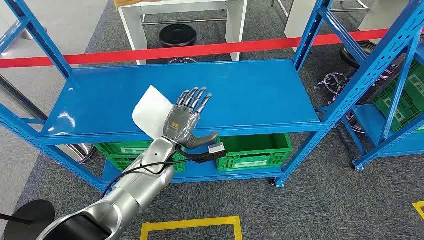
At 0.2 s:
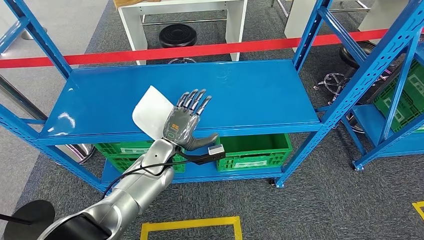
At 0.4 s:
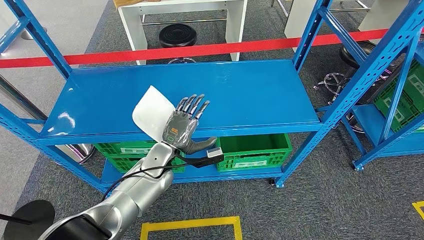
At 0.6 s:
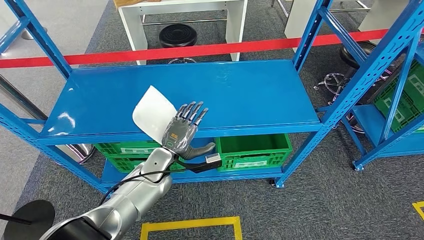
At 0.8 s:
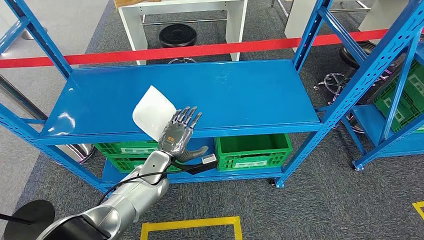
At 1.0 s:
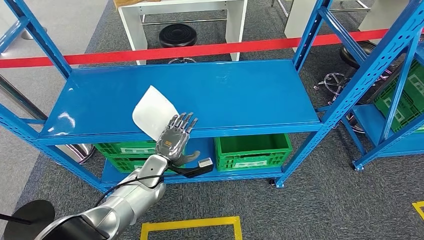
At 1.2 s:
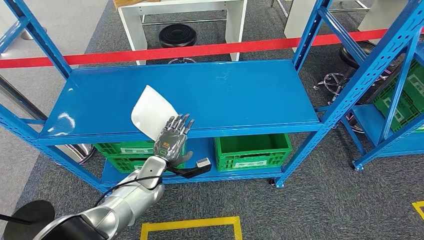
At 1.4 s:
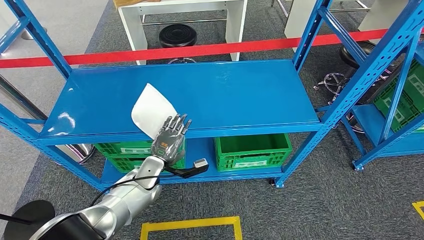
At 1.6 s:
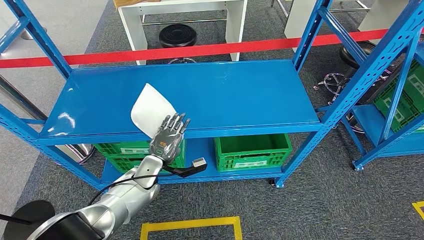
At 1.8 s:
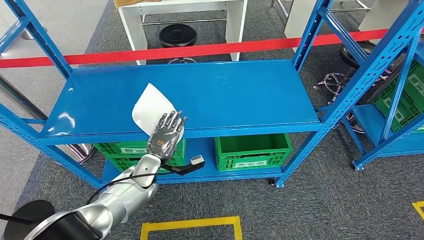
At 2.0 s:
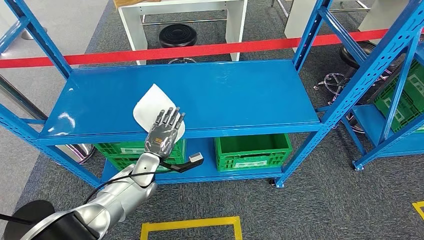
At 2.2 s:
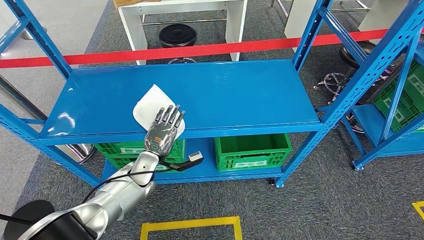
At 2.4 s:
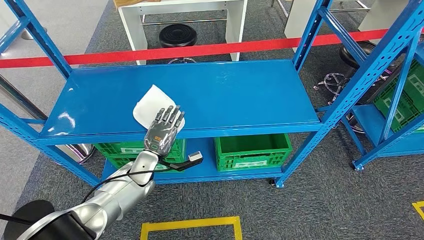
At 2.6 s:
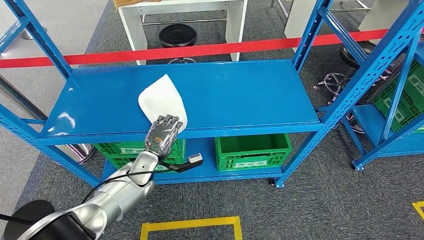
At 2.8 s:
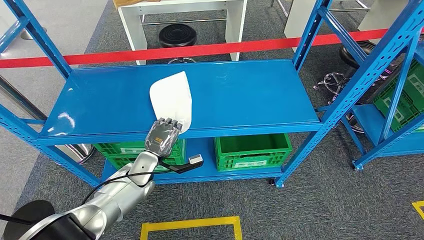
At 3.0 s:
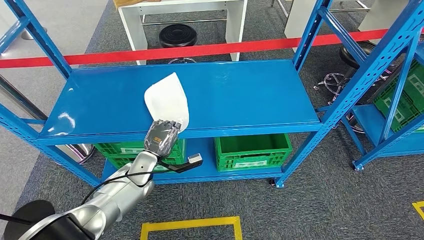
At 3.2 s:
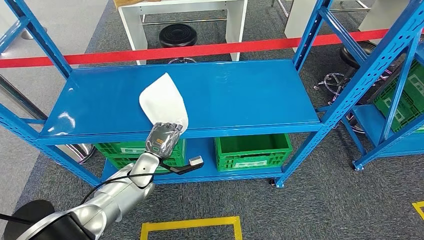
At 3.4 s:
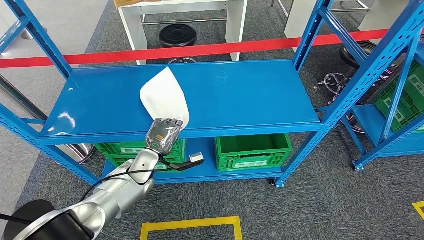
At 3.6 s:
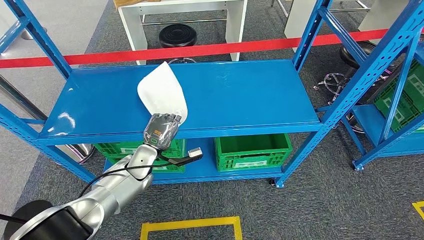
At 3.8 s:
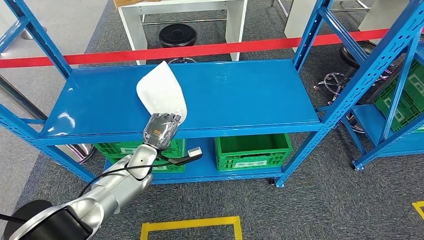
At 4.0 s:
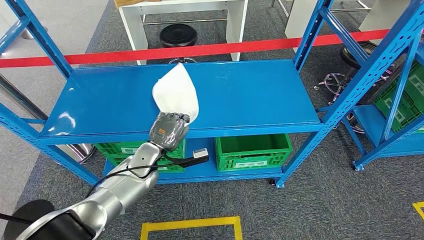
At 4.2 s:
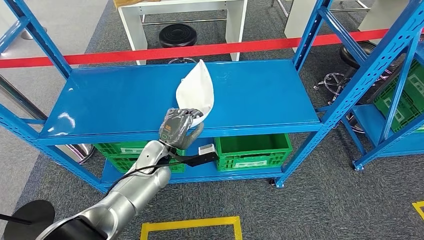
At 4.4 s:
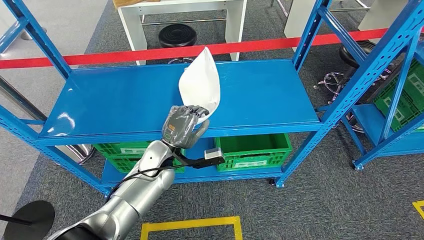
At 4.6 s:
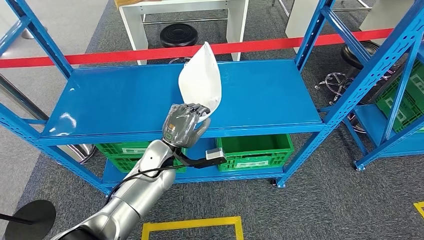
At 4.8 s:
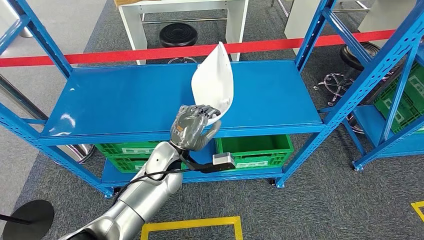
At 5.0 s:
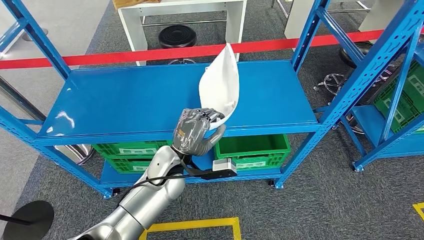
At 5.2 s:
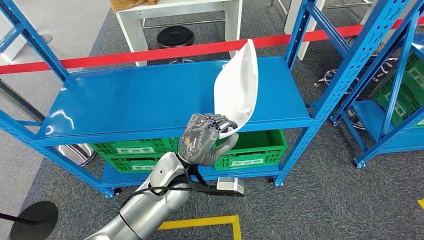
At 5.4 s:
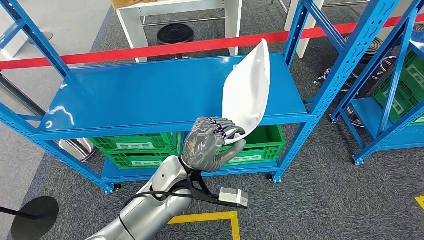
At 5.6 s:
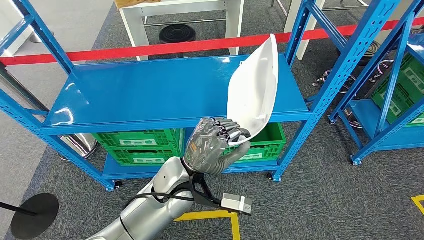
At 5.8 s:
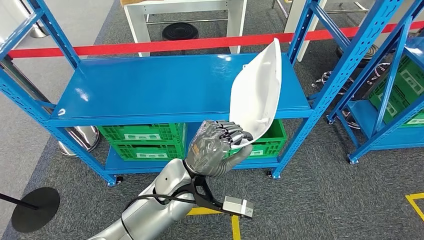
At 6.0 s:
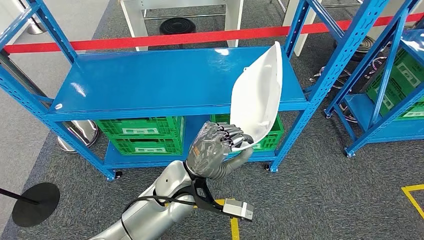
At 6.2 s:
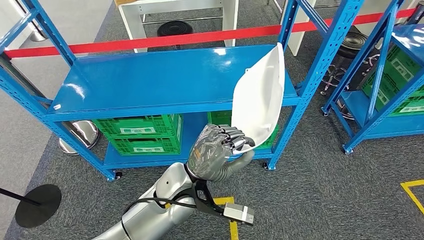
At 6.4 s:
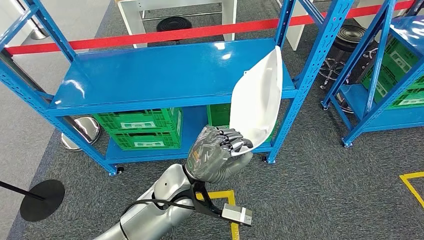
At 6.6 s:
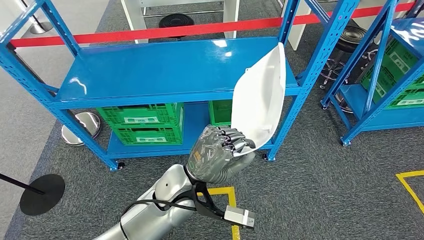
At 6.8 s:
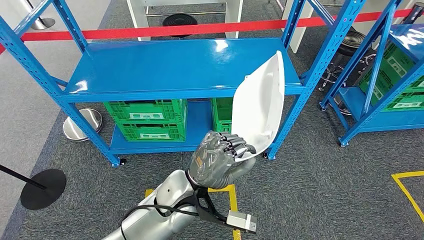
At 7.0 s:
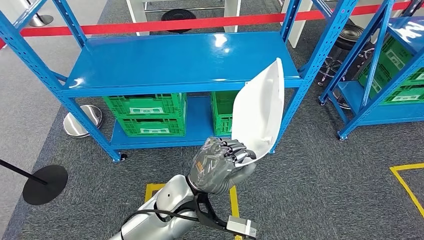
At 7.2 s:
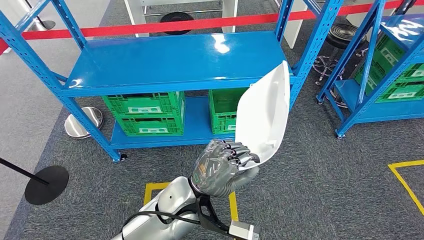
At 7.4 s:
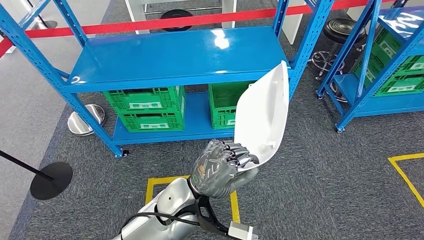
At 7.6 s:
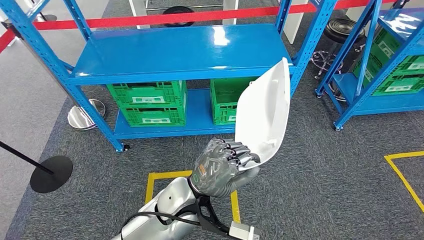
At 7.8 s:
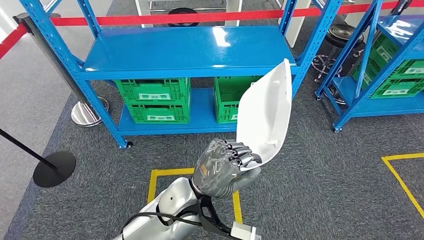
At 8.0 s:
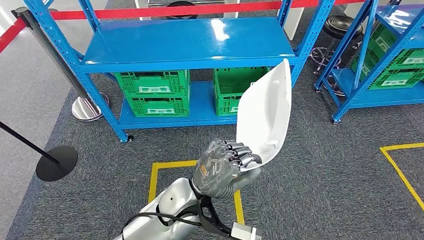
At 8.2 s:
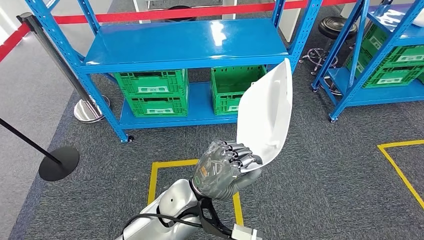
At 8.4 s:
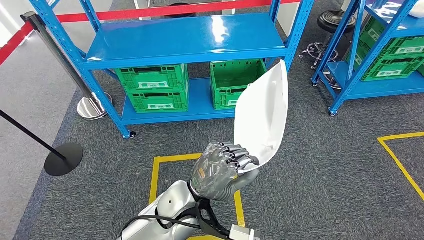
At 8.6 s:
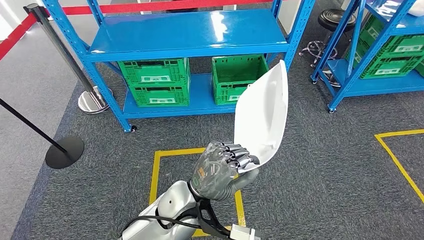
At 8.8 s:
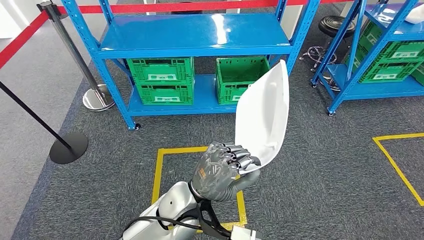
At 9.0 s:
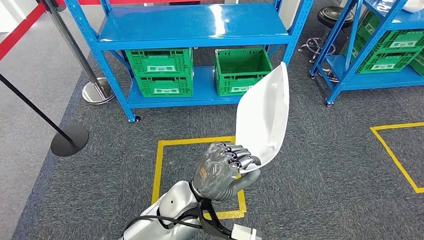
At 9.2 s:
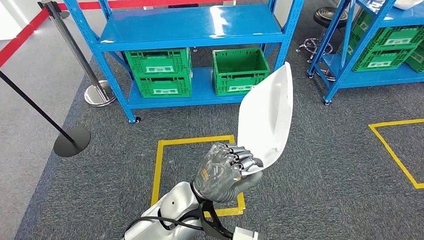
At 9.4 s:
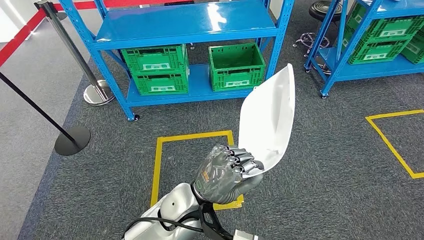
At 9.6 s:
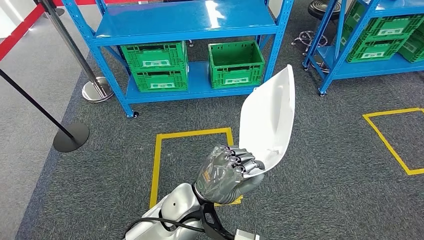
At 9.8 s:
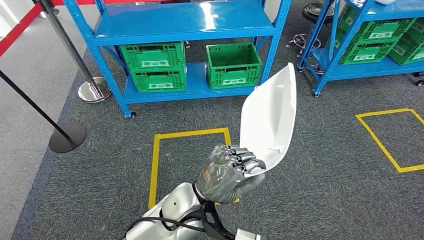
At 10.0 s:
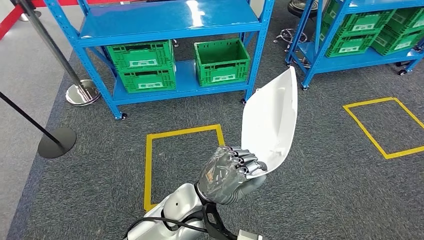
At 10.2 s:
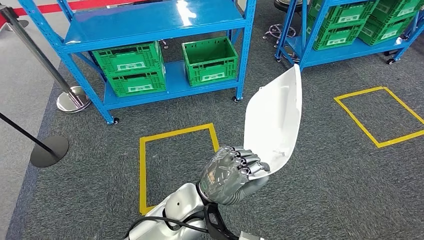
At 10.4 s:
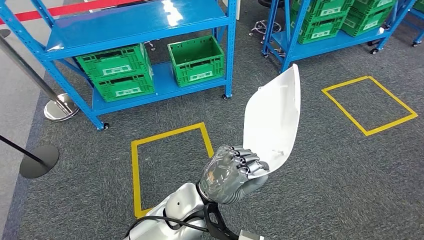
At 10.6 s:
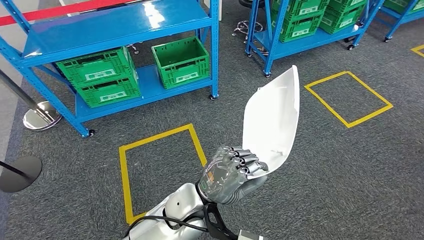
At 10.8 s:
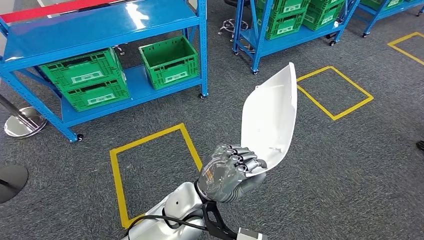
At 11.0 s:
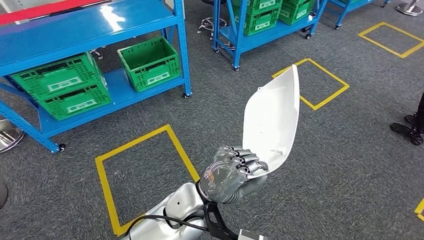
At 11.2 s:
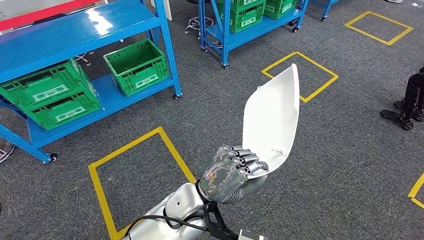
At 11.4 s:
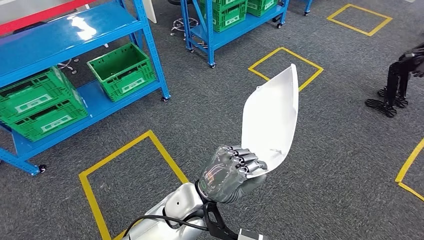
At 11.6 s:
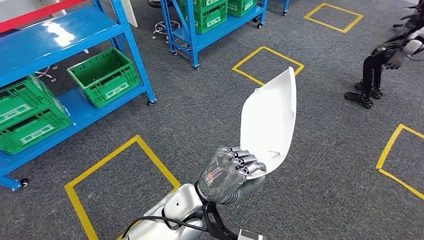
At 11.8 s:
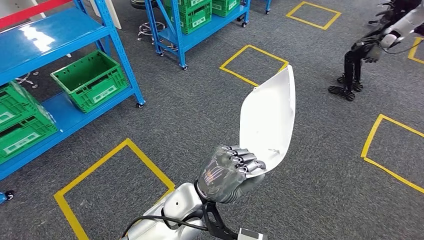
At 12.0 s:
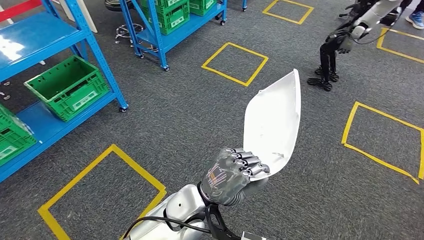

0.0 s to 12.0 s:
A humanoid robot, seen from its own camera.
Step, 0.0 to 5.0 s: Pick up the small component from the shelf.
1.6 to 3.0 s: There are only small adjustments of the hands.
3.0 to 4.4 s: The left hand shifts approximately 10 cm upward and to the right.

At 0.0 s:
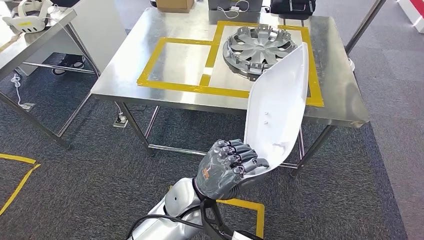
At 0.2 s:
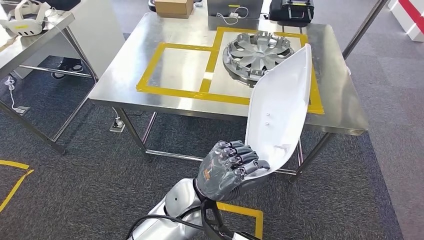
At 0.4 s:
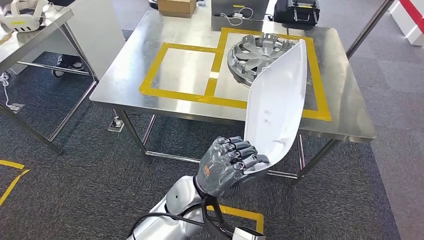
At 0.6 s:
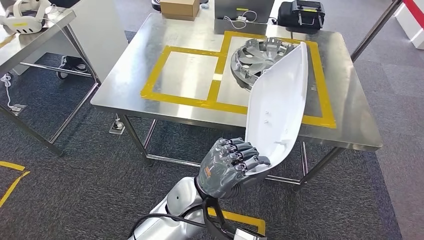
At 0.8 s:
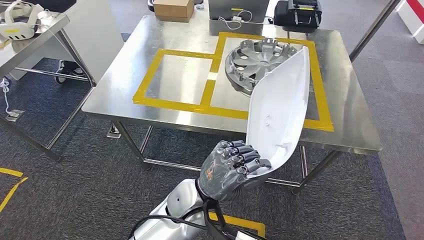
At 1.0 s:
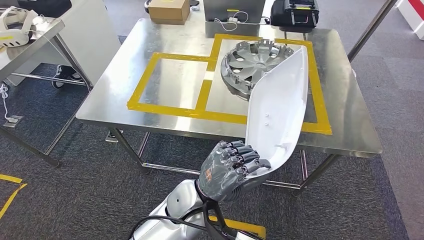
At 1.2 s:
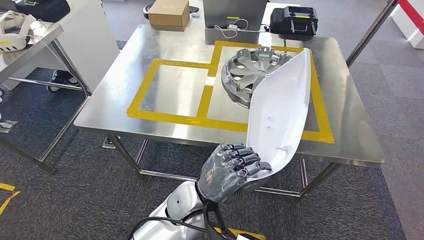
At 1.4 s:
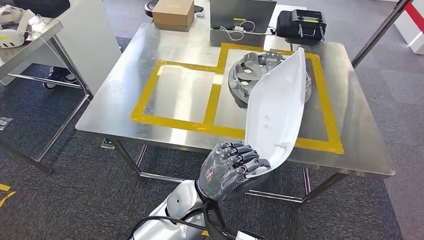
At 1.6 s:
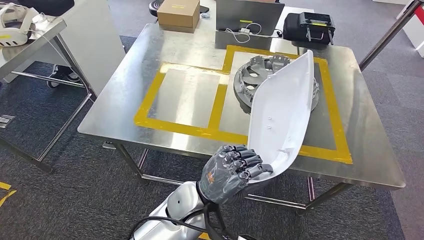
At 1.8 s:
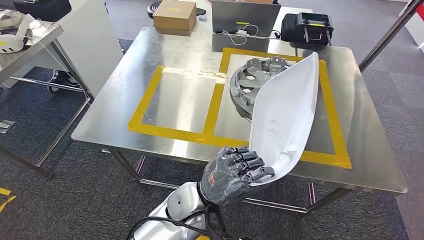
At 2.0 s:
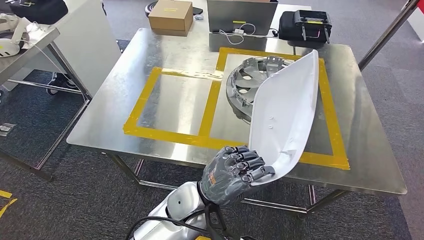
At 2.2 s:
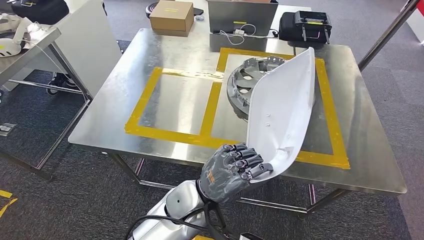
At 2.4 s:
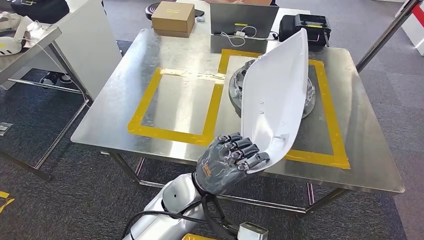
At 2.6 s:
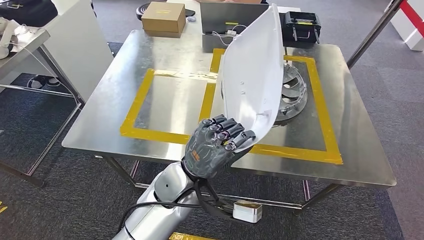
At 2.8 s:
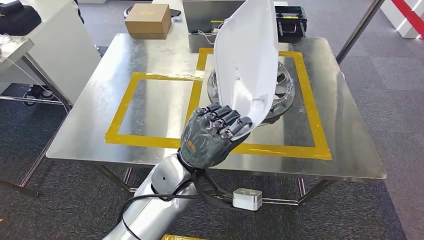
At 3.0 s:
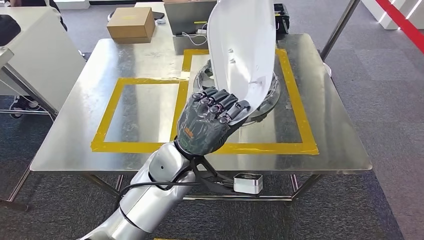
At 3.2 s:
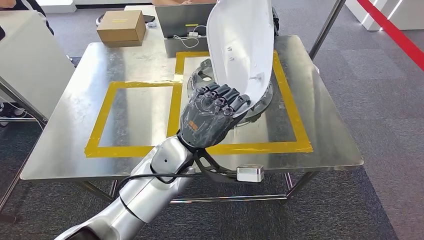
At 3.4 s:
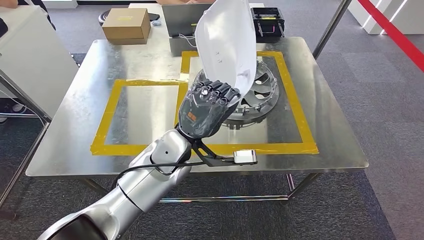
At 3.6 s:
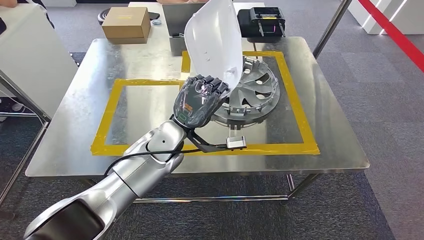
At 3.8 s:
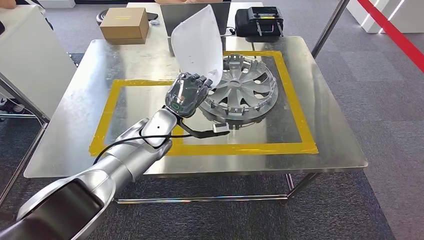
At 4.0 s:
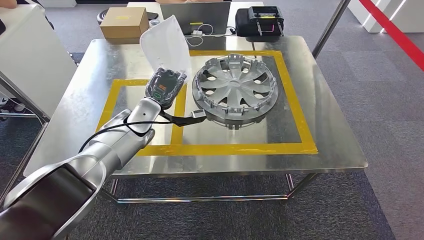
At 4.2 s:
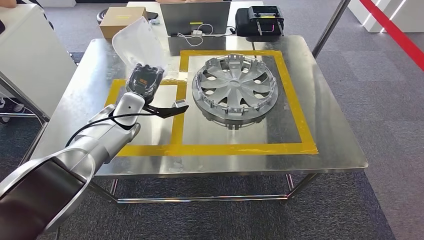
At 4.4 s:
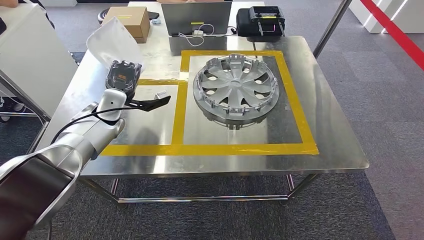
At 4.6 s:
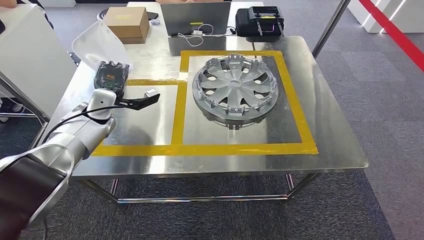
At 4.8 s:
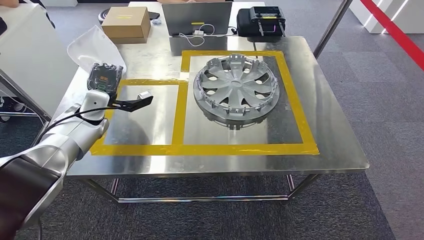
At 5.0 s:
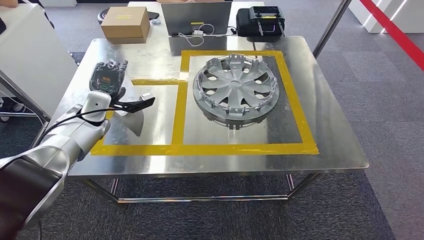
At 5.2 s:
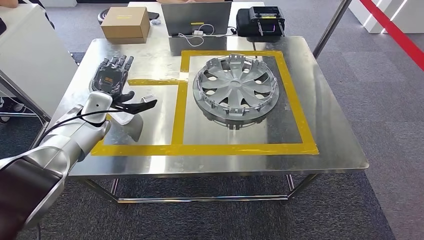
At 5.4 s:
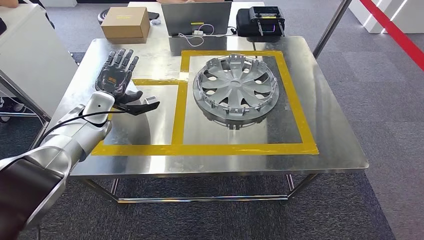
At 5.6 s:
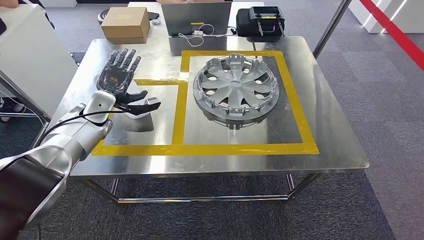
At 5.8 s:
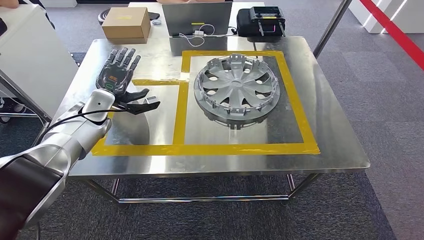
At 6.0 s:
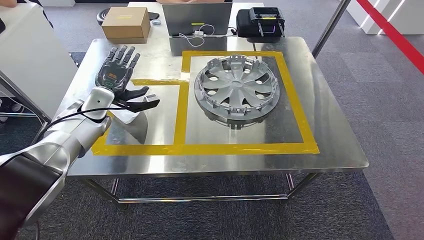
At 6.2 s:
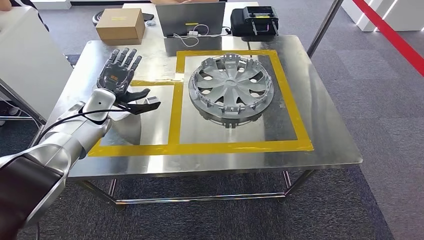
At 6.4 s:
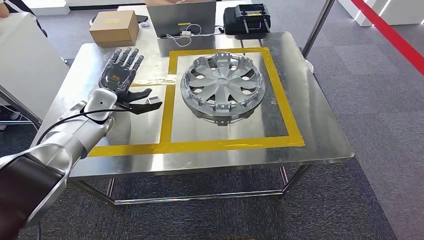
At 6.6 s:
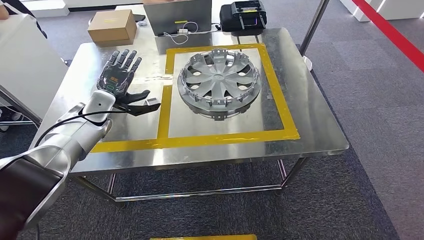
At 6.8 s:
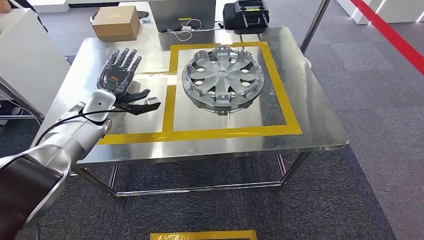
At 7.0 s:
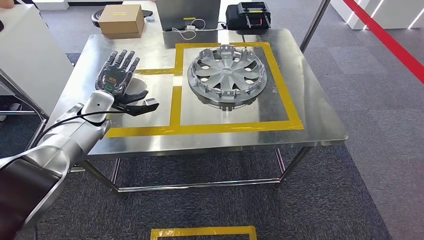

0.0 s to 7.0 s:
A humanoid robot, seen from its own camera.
Step, 1.6 to 6.8 s: Insert the small component into the corresponding slot on the workbench.
4.2 to 5.6 s: The left hand goes some 10 cm to the left.
